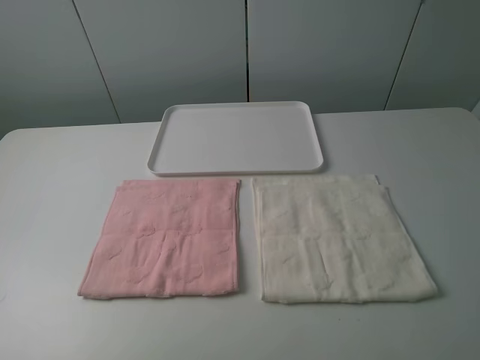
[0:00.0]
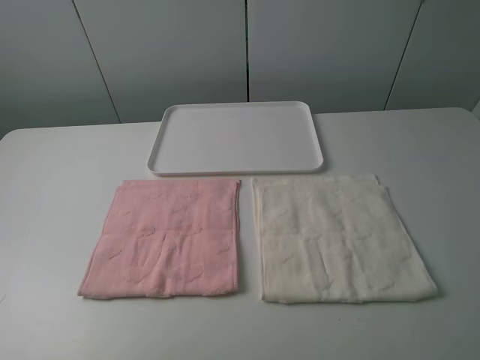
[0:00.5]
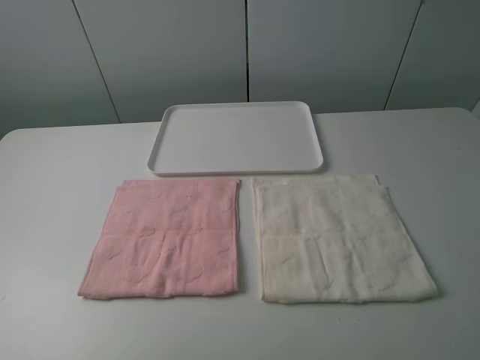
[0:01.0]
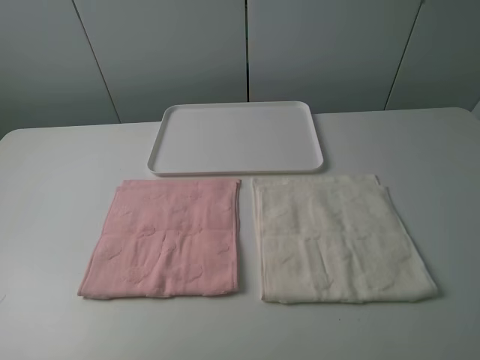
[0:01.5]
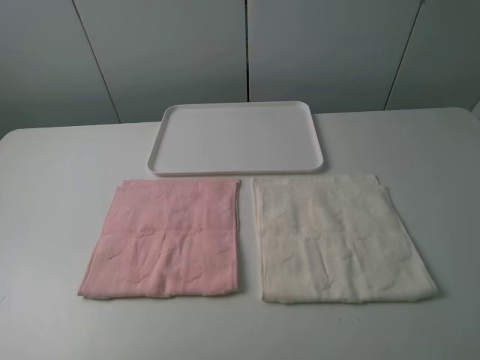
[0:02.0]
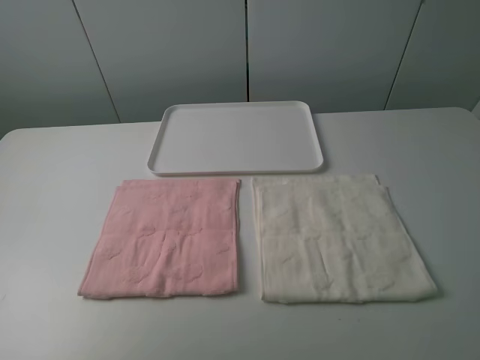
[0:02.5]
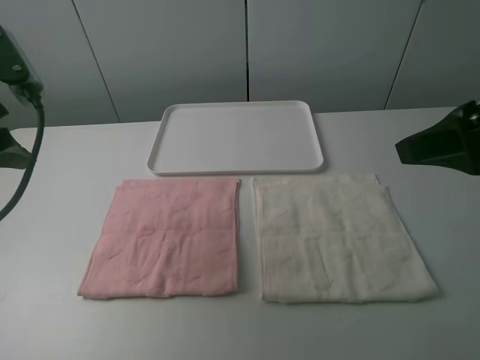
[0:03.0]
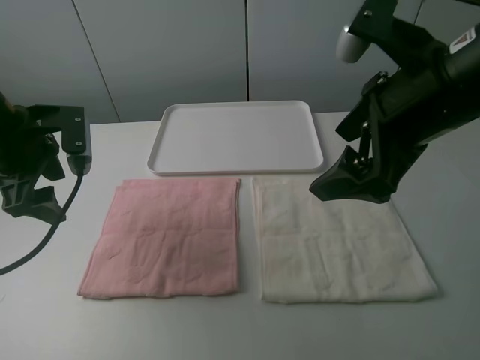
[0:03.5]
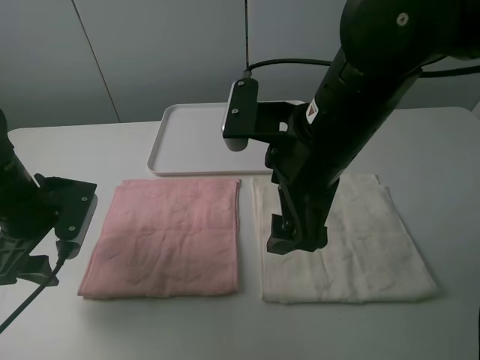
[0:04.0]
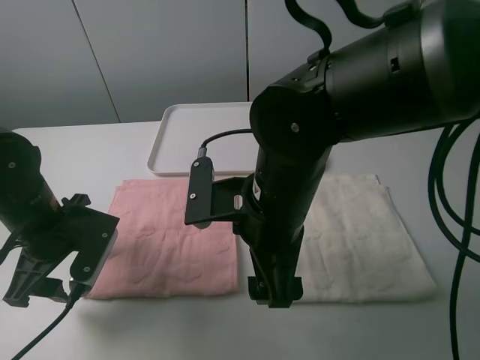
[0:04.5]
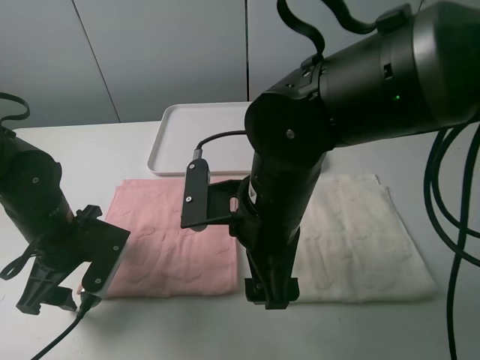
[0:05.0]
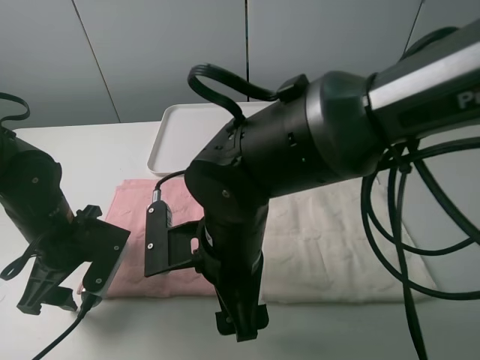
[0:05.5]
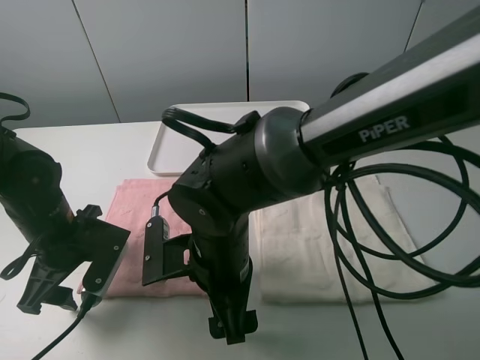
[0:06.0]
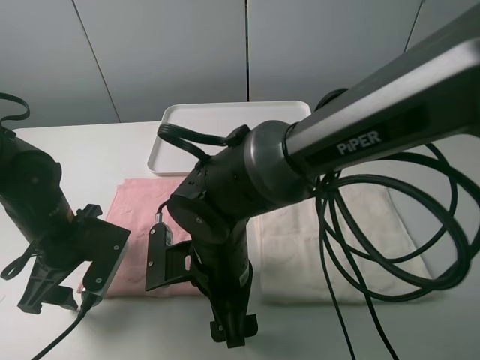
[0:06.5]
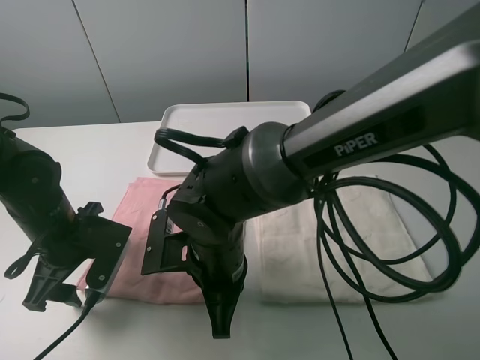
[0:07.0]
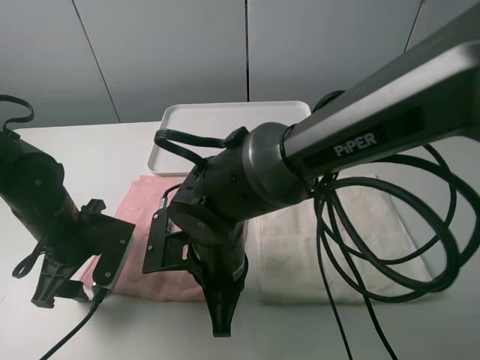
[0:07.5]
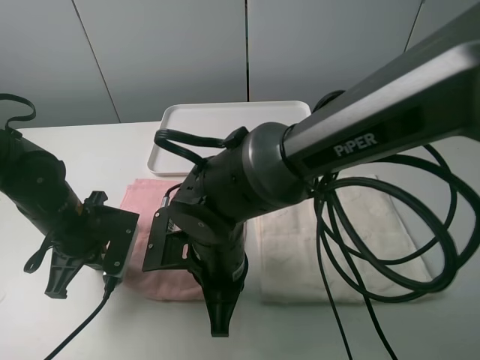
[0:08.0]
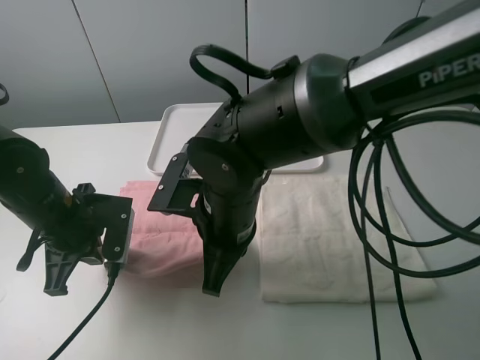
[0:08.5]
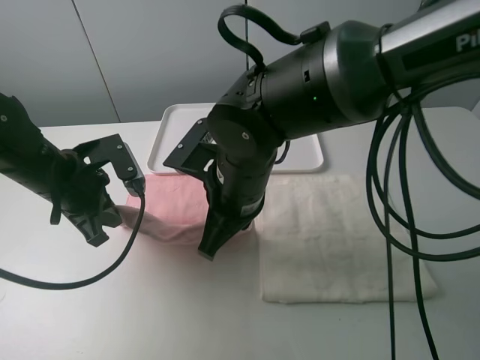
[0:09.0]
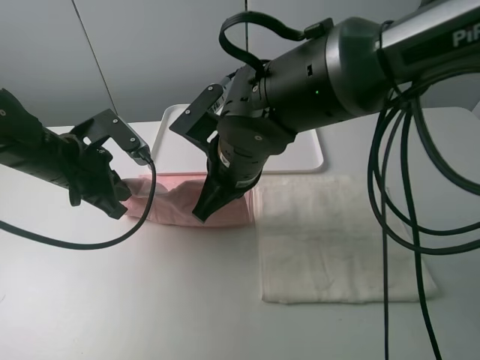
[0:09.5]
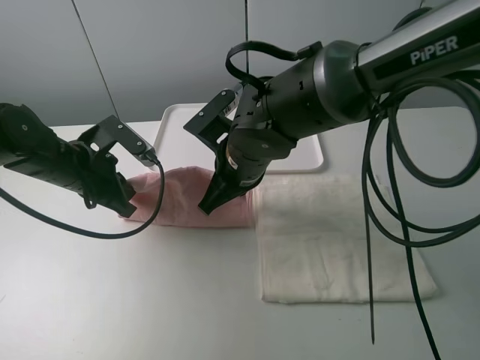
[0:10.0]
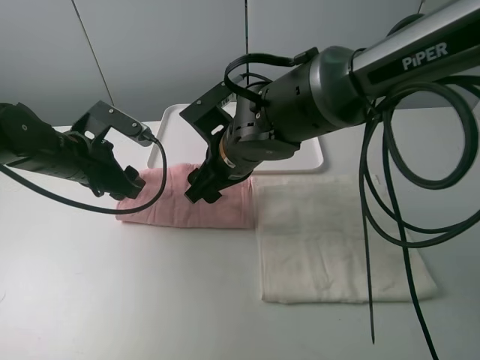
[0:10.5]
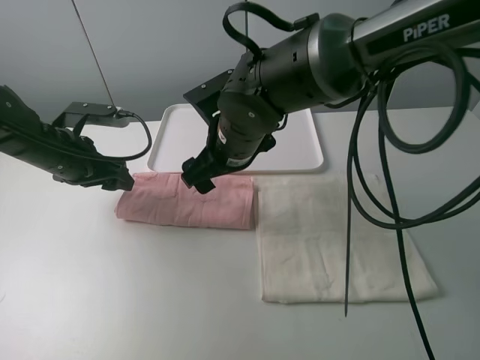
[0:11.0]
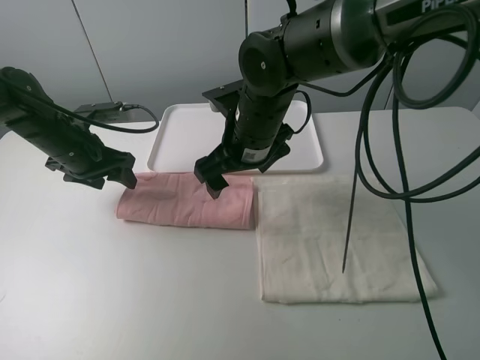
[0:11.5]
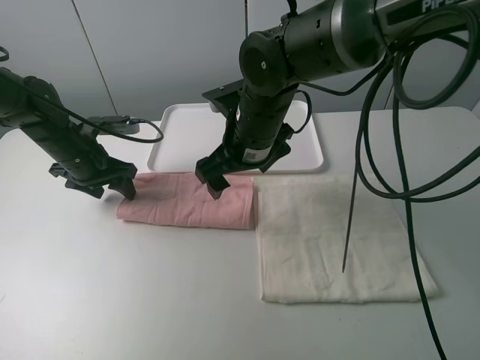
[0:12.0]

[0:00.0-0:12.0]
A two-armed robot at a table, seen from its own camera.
Task of the whole recording: fold one of the towels by two grippers and place it on the tray,then fold another towel by two grippers and place it on the folded towel.
Step, 0:00.0 to 0:07.5: Grasp the pink towel with the left gripper.
Step, 0:08.0 to 0:10.5: Fold the pink towel upwards with the left gripper.
Step, 0:11.0 to 0:12.0: Press the pink towel with the left gripper.
0:00.0 to 0:02.0: Both grippers stay about where they are.
0:02.0 to 0:04.0: The left gripper shifts about 30 cm forward and downward. The right gripper is displaced forward and to the left by approximately 30 cm.
0:04.0 to 0:06.0: The right gripper is displaced downward and to the left by roughly 15 cm. The left gripper ends up about 5 cm from where it was.
0:06.0 to 0:08.0: The left gripper closes its fingers; the right gripper closes up.
0:08.0 to 0:10.0: The right gripper shifts roughly 10 cm forward; the left gripper travels forward by approximately 5 cm.
0:10.0 to 0:12.0: The left gripper heads forward, covering roughly 5 cm, and opens up. The right gripper opens up.

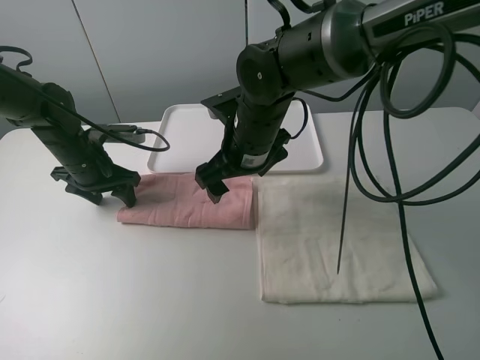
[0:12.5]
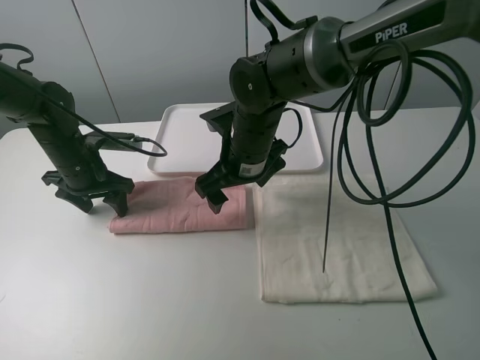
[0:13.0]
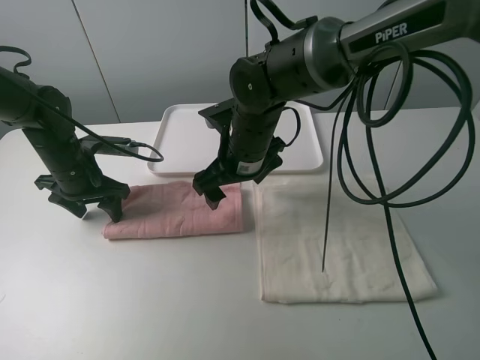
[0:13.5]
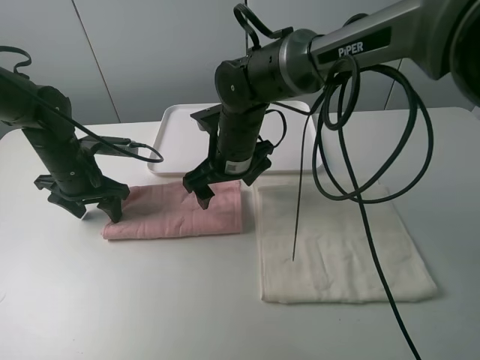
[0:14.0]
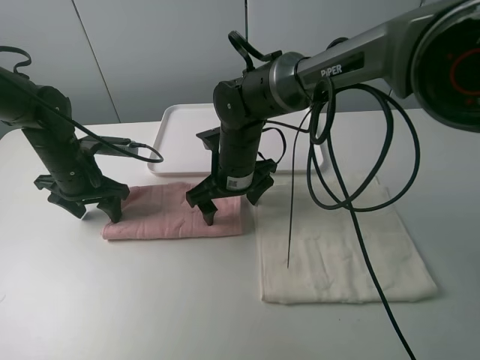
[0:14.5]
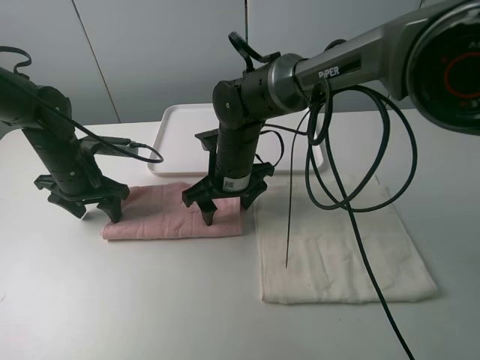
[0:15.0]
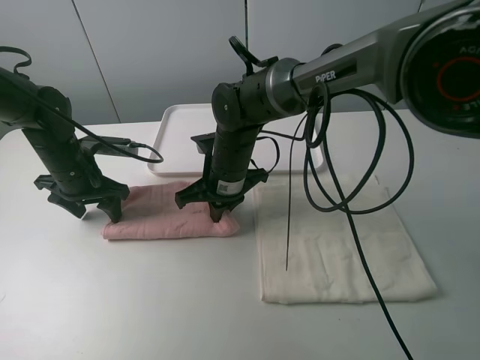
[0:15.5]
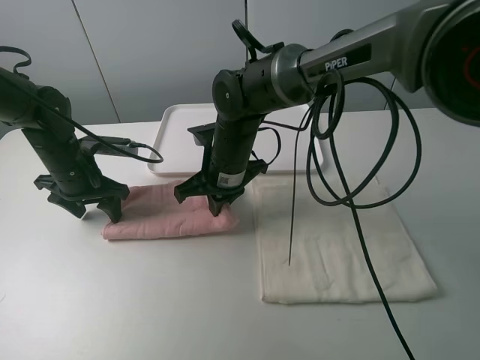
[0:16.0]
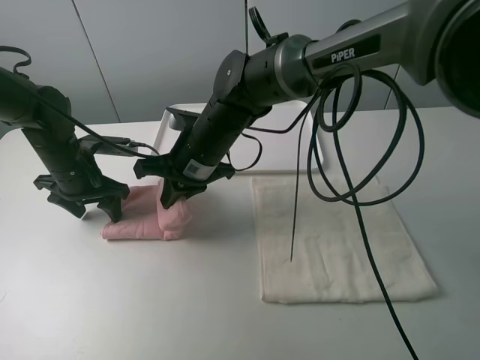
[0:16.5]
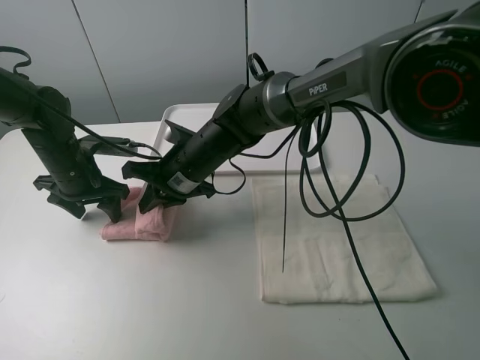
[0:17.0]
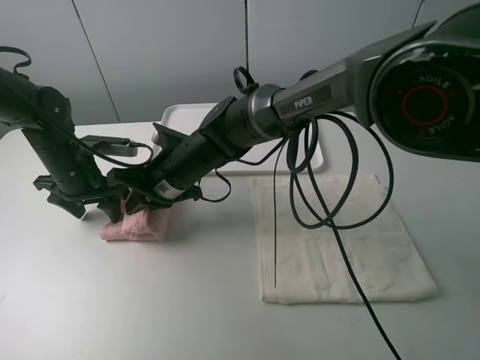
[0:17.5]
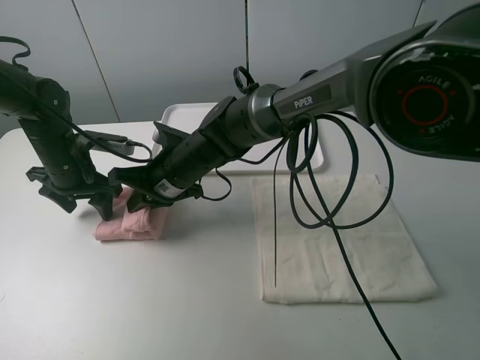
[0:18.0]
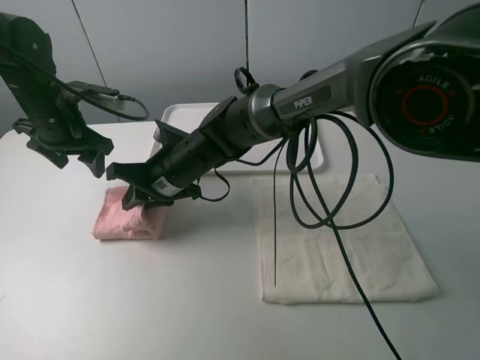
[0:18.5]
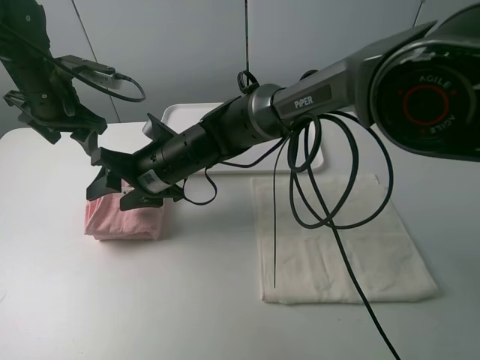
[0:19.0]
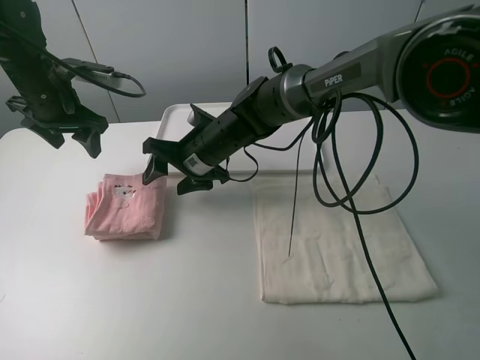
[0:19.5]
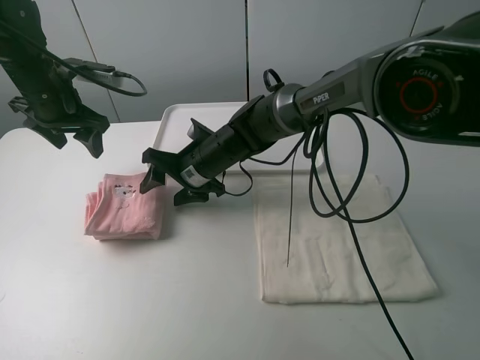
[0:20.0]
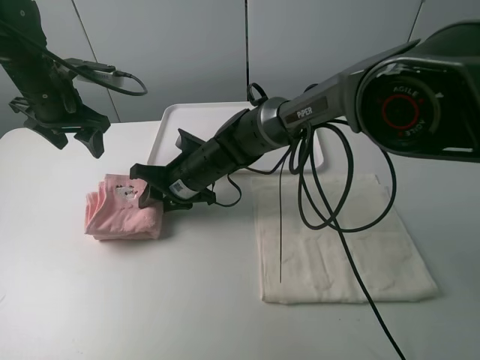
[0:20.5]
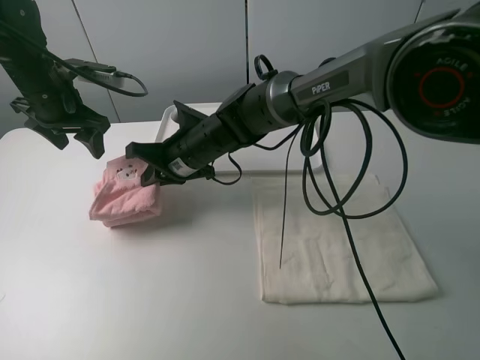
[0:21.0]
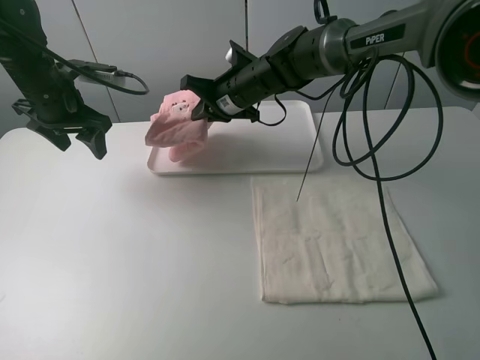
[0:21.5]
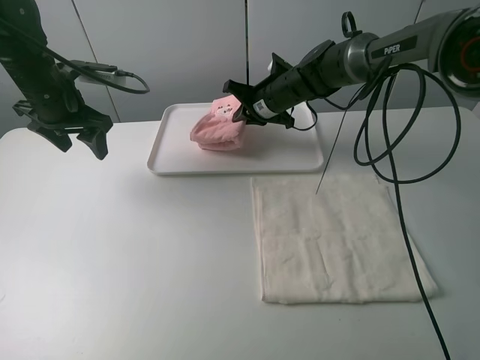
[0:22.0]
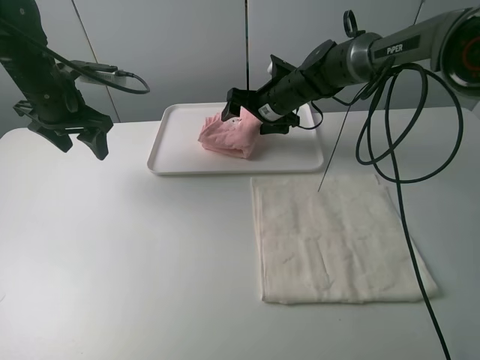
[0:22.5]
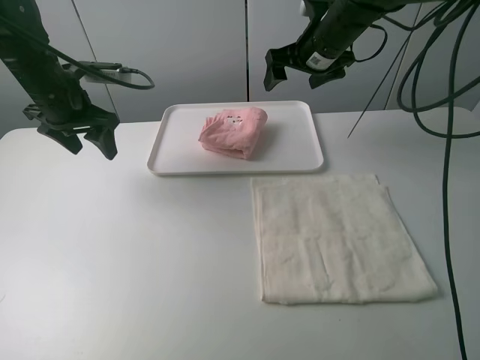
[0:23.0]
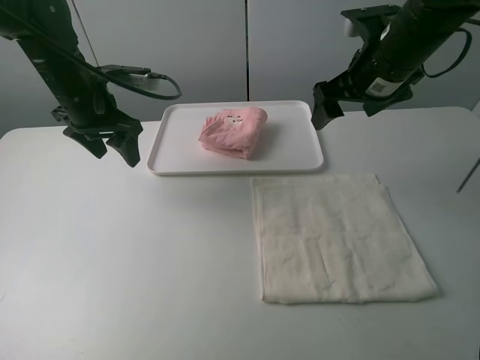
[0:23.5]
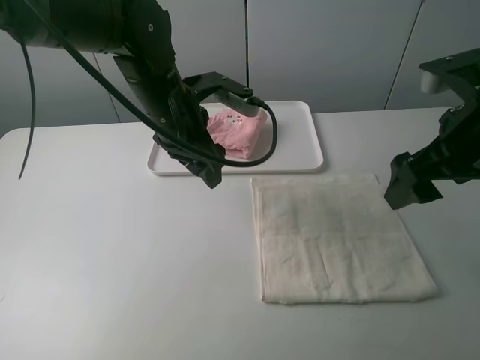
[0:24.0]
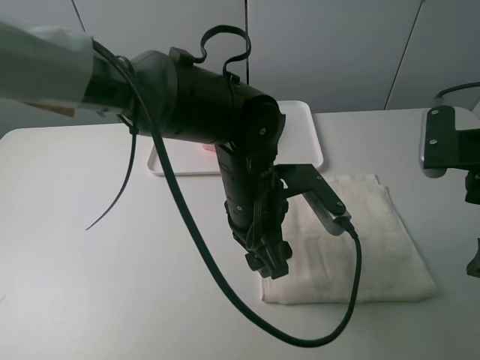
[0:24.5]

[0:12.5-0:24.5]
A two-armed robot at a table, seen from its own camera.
Task of the whole recording: fold one of the towels by two grippers and place it on the tray,then fold another towel by two grippers and place it on the folded towel.
Step, 0:12.5 to 0:15.0: Grasp the pink towel with the right gripper.
Step, 0:15.5 to 0:19.0: Fold the pink towel from right to left with right gripper.
Step, 0:19.5 to 0:20.5: Grasp the pink towel with the right gripper.
Step, 0:21.0 to 0:22.5: Move the pink towel to the plate with the right gripper.
0:12.5 to 0:14.5: The right gripper goes about 5 cm downward.
0:14.5 to 0:16.5: The right gripper ends up about 5 cm from where it was, and closes.
0:16.5 to 0:18.5: The right gripper changes place by about 5 cm. The left gripper goes roughly 10 cm upward.
0:18.5 to 0:20.5: The grippers stay close to where they were, moving slightly.
0:20.5 to 0:22.5: The right gripper travels to the right and forward by roughly 20 cm, and opens.
0:22.5 to 0:24.5: The left gripper travels to the right and backward by about 35 cm, while the right gripper shifts about 35 cm backward and to the right.

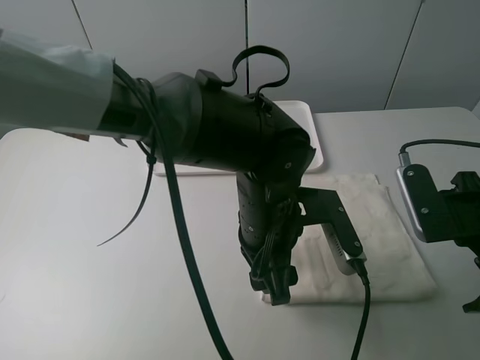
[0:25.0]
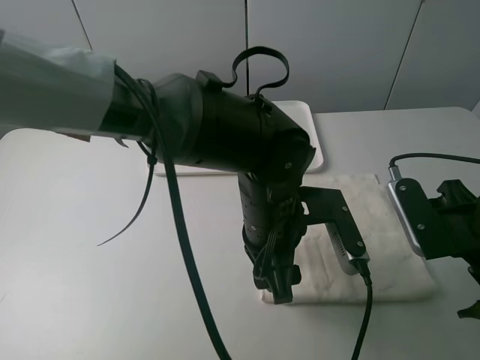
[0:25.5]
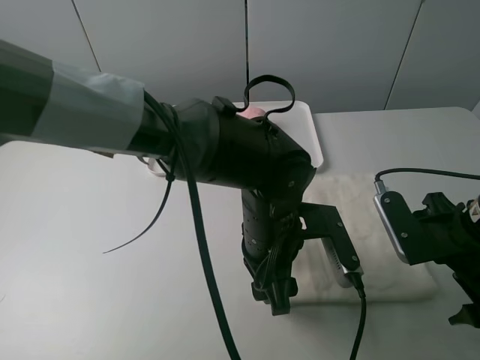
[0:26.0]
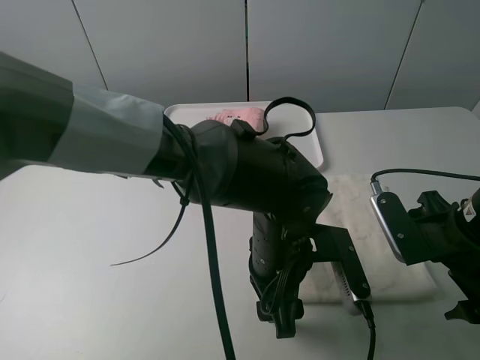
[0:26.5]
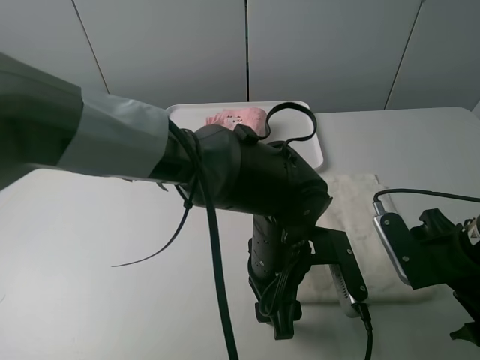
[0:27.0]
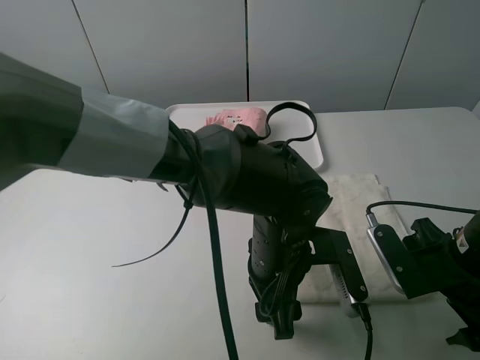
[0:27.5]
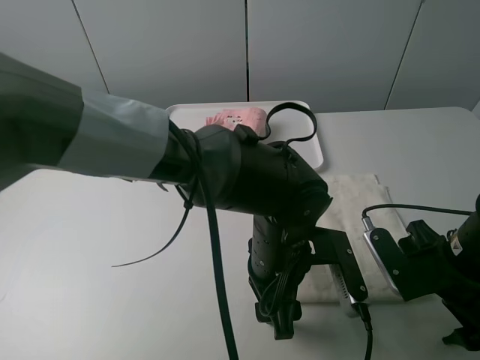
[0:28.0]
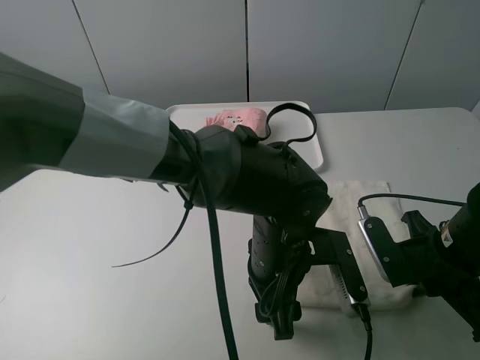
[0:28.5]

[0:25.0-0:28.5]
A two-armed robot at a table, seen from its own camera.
Task of the whole recording: fold one of the towels by two grippers and place it on the tray,then fold another towel by two grippers and place it on the folded towel.
0:25.0 to 0:27.0: The right gripper travels downward by about 5 cm.
0:27.0 to 0:28.5: The right gripper closes.
